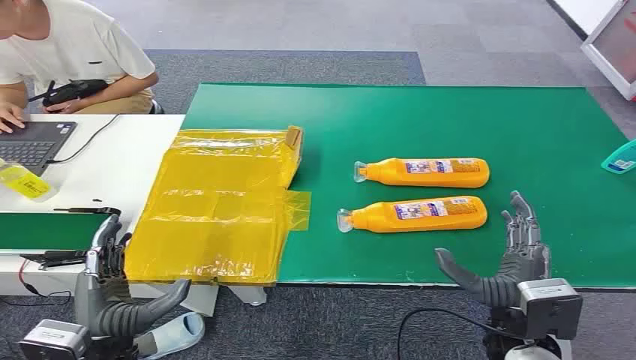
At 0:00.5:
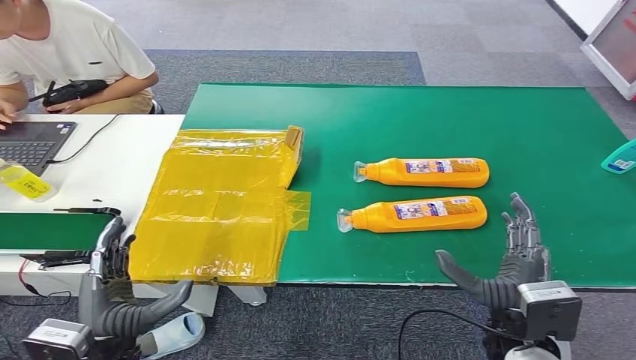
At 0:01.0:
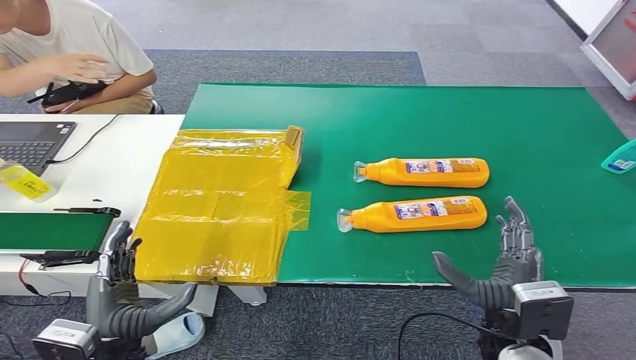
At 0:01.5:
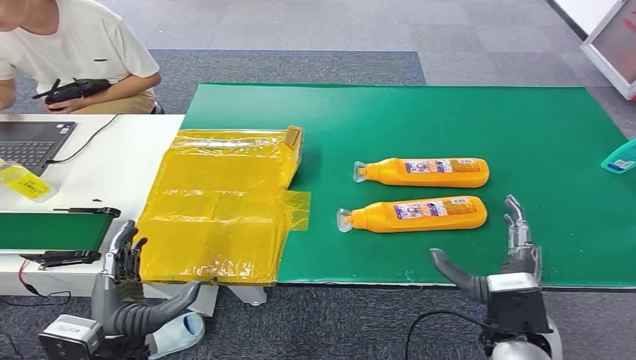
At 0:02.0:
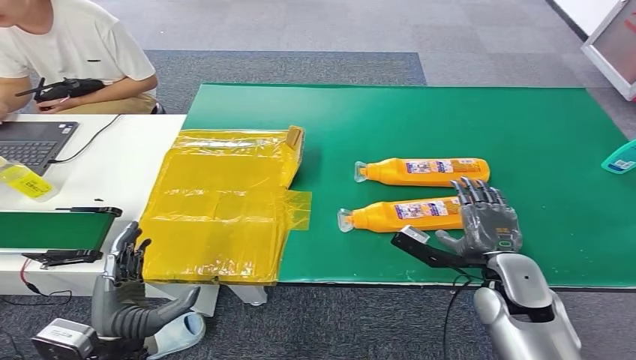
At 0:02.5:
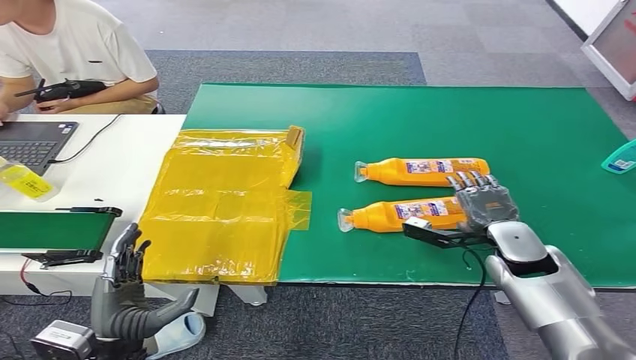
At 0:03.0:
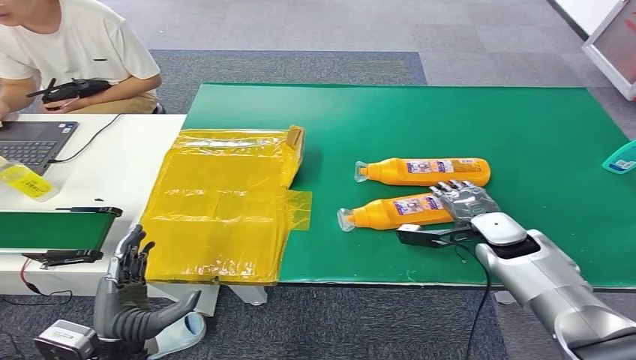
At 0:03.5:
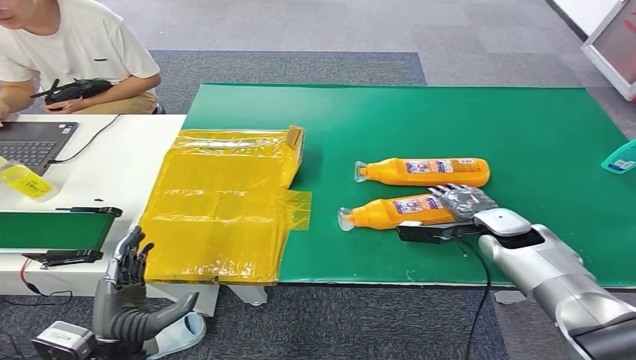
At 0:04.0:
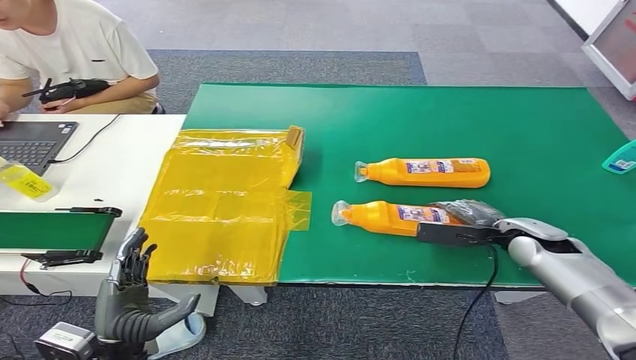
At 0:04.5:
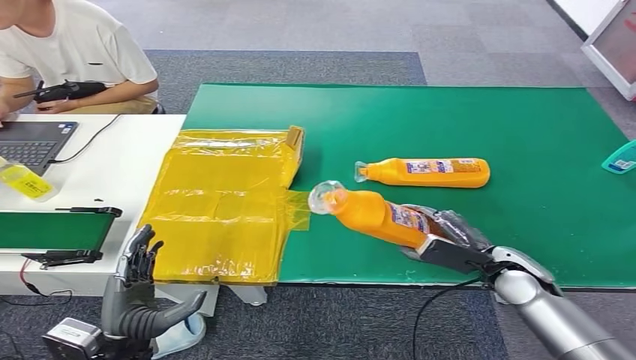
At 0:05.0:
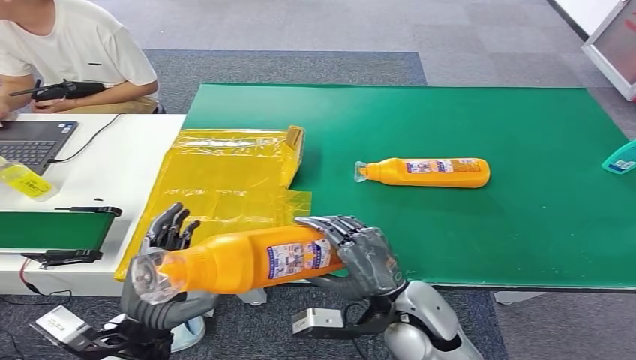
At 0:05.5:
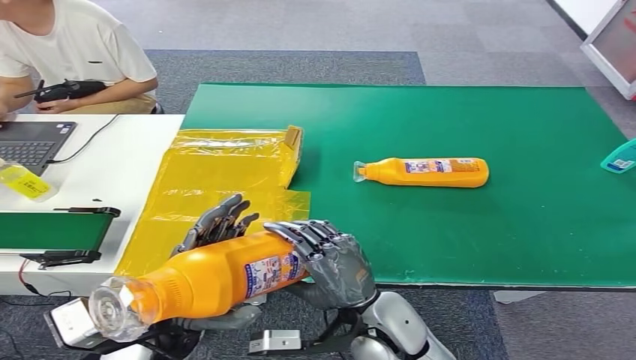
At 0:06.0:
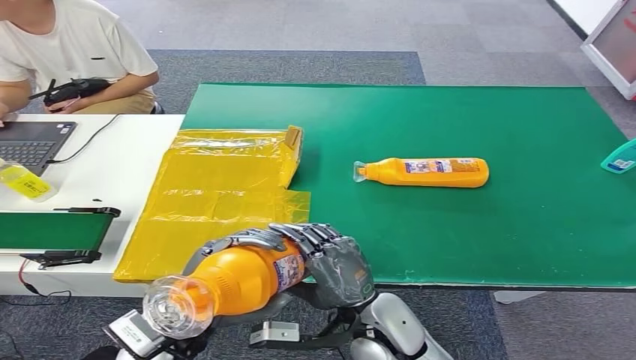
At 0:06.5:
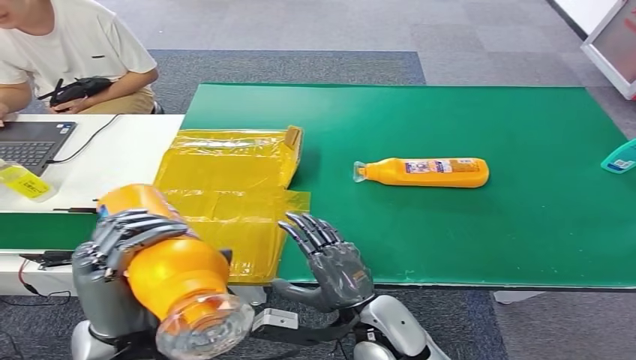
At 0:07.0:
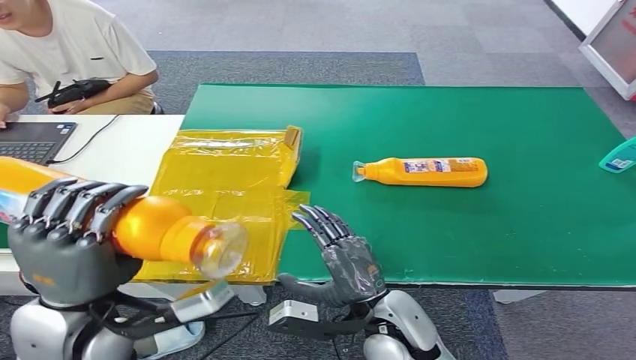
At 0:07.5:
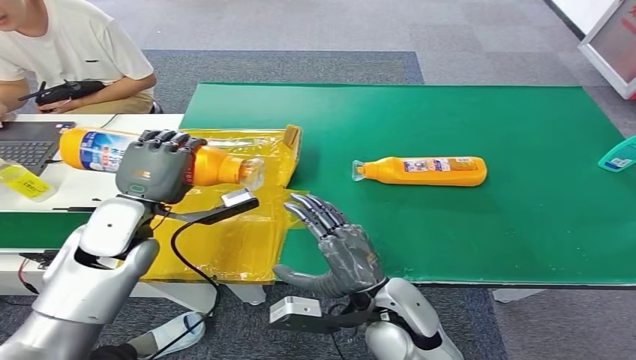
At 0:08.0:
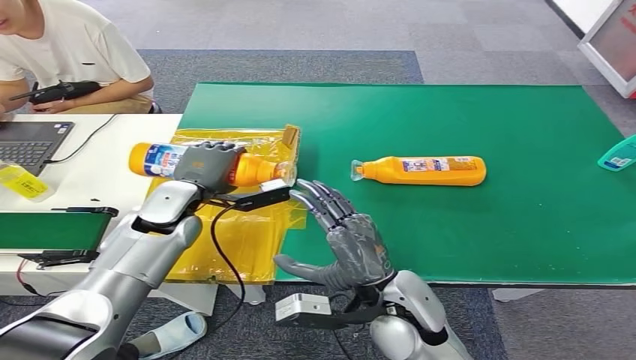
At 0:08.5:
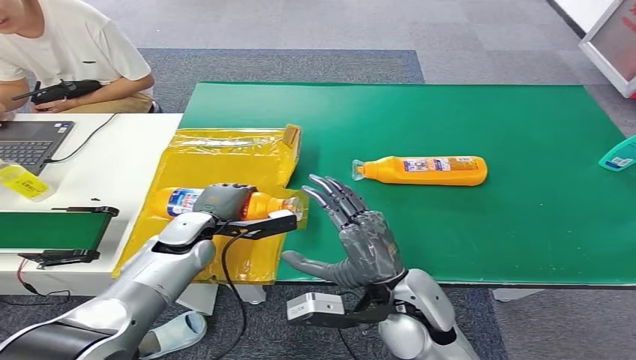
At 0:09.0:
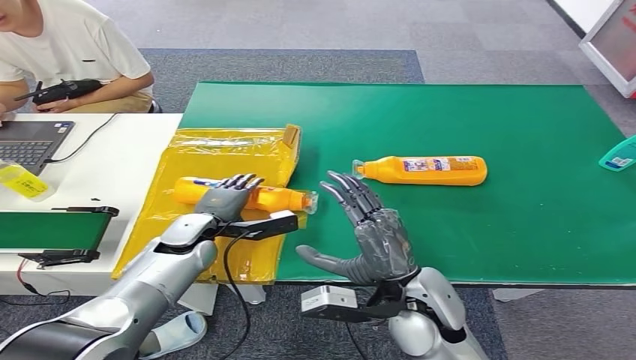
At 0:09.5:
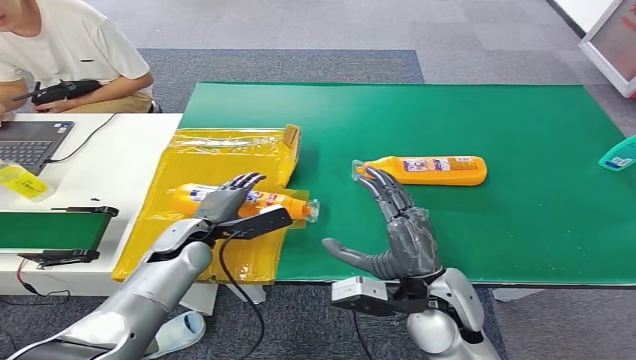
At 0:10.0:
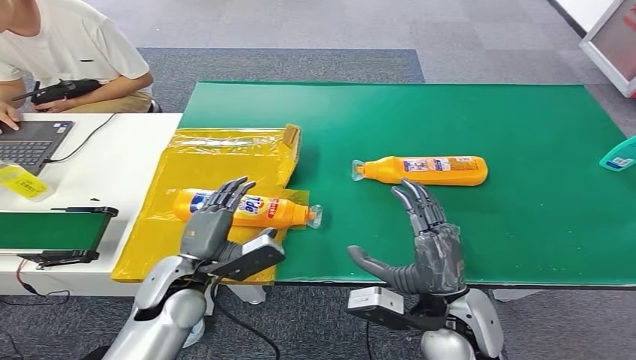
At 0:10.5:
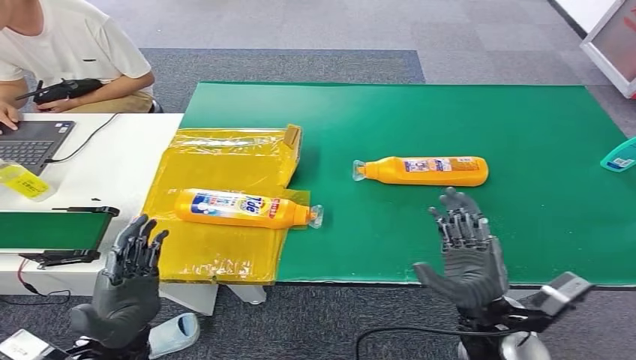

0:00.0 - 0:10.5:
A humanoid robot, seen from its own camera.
Step, 0:00.0 - 0:04.5: Pick up the bottle from the table.
Step, 0:05.0 - 0:10.0: Turn the bottle to the front side.
0:02.0 - 0:04.0: The right hand shifts approximately 15 cm forward and to the right.
0:08.5 - 0:10.5: The right hand travels to the right by about 10 cm, while the left hand goes roughly 20 cm backward.

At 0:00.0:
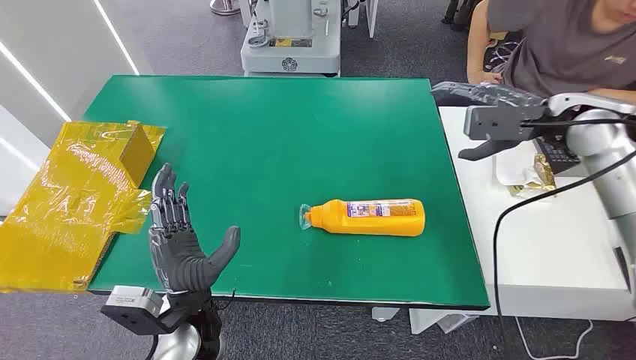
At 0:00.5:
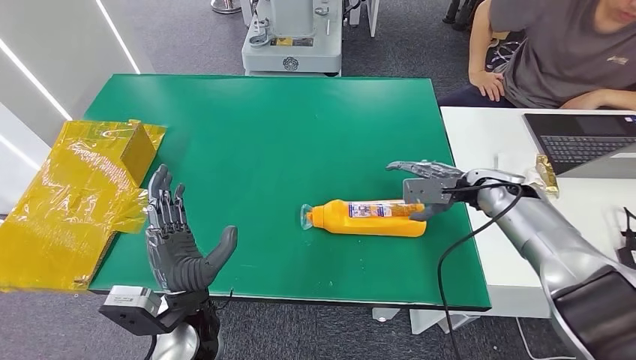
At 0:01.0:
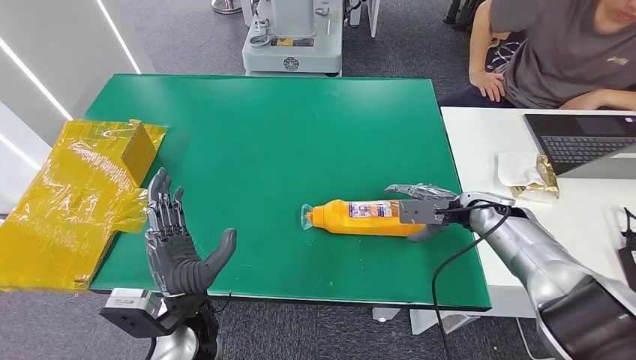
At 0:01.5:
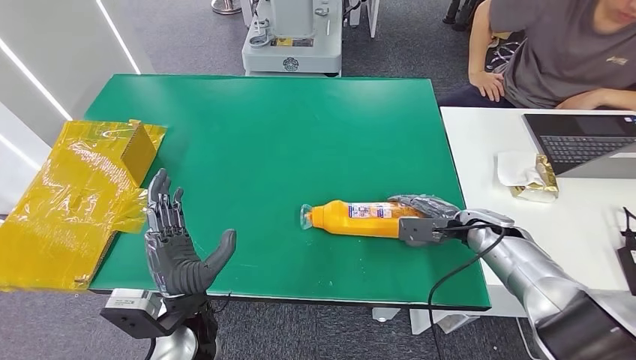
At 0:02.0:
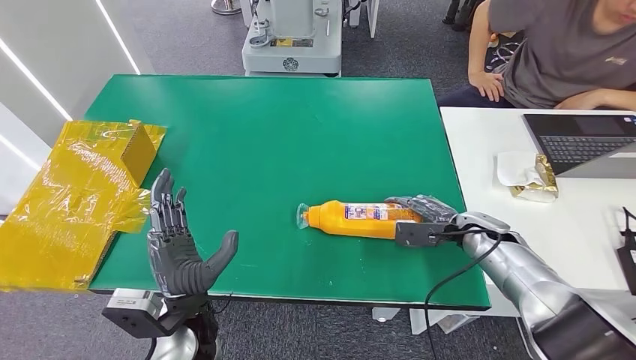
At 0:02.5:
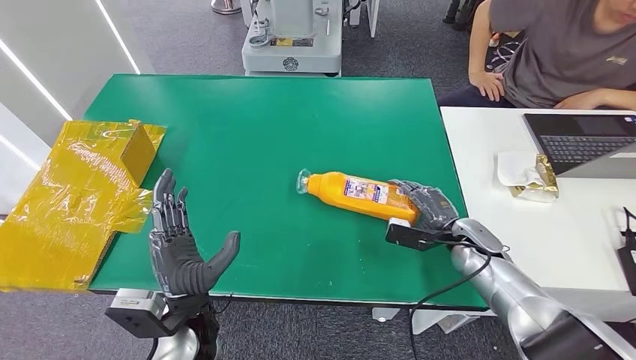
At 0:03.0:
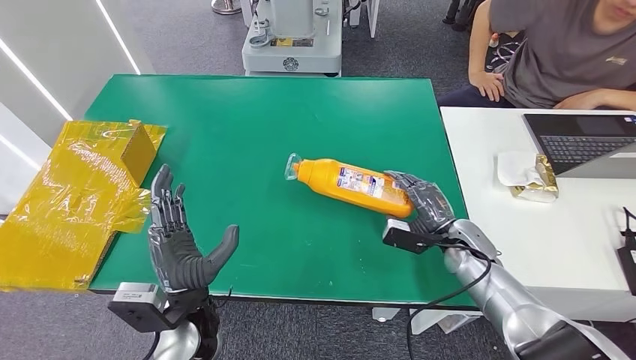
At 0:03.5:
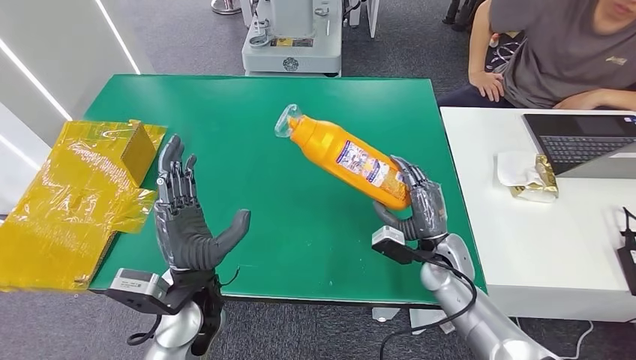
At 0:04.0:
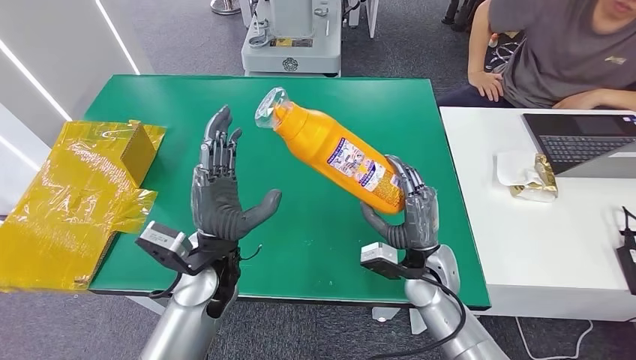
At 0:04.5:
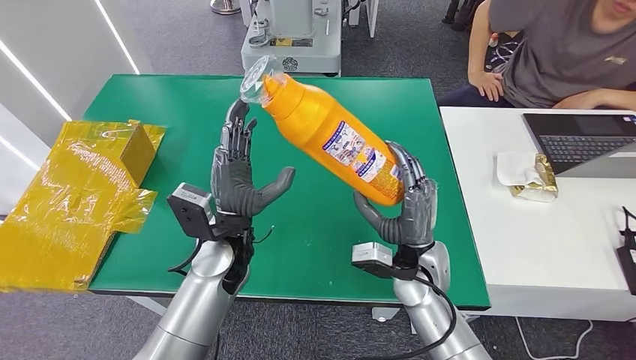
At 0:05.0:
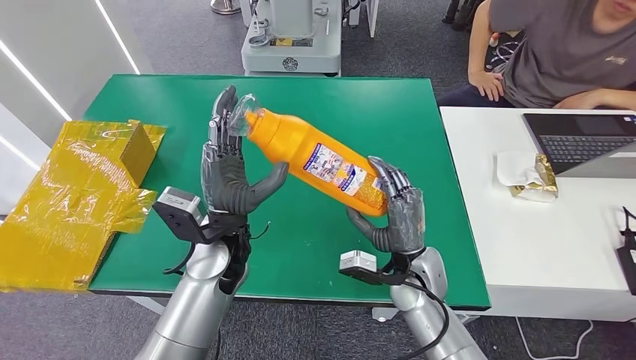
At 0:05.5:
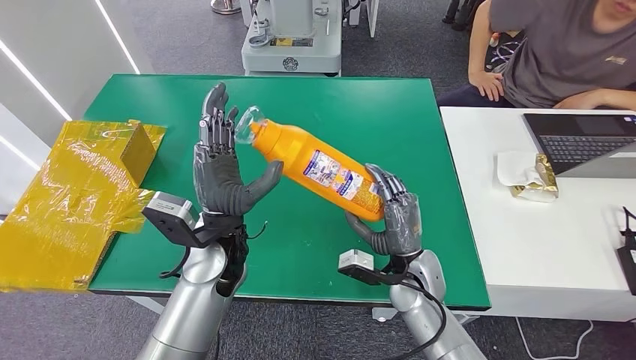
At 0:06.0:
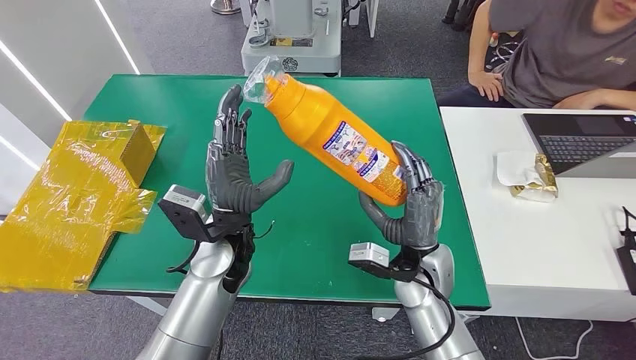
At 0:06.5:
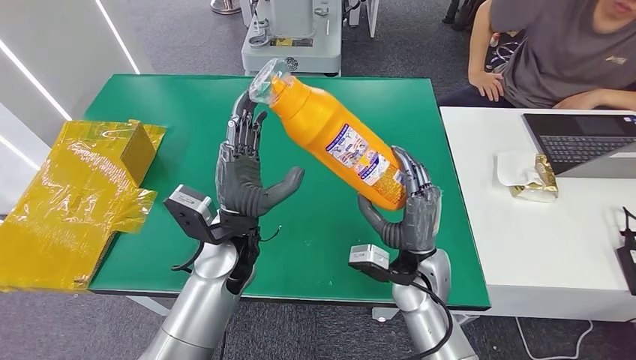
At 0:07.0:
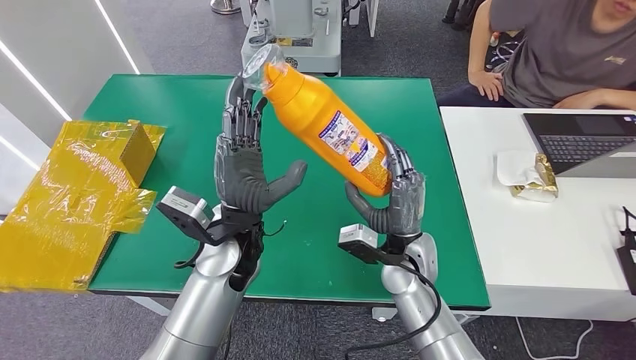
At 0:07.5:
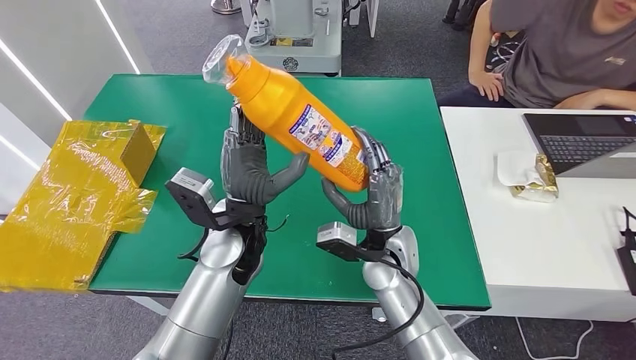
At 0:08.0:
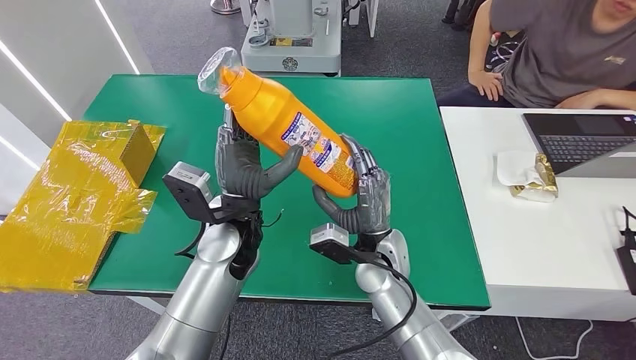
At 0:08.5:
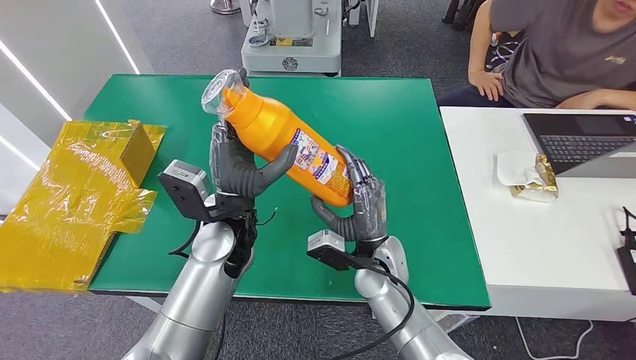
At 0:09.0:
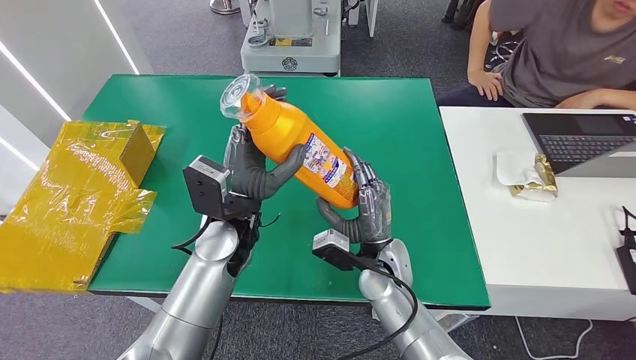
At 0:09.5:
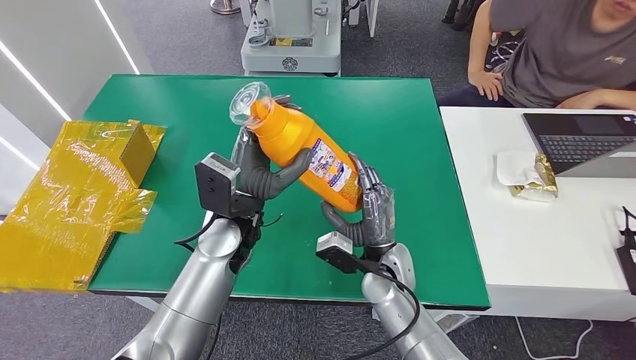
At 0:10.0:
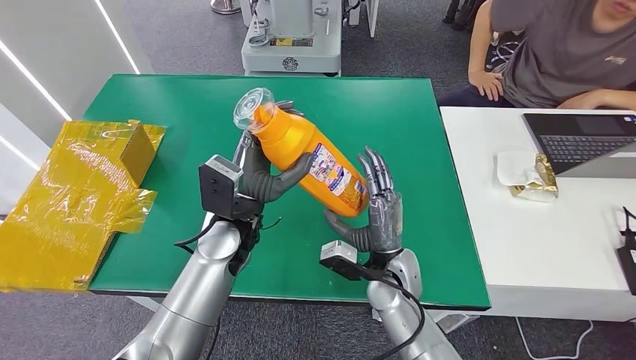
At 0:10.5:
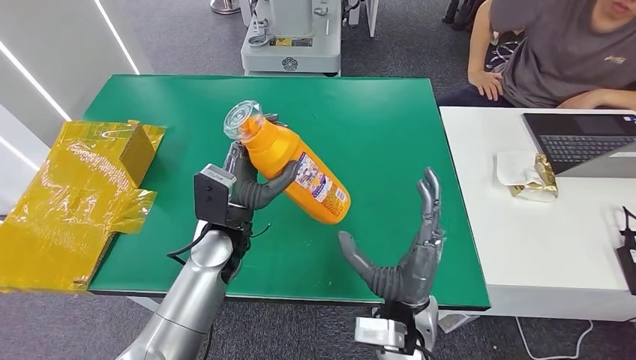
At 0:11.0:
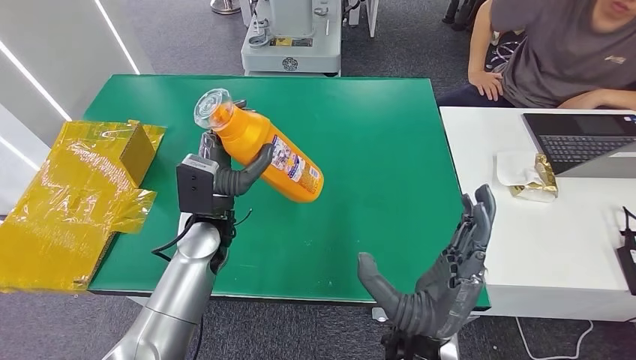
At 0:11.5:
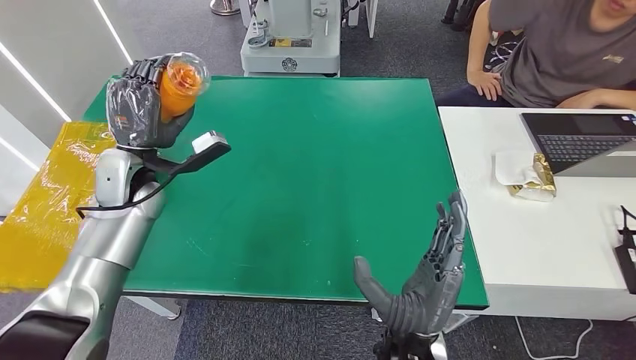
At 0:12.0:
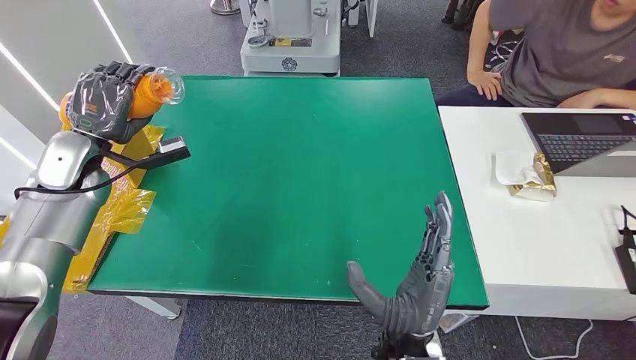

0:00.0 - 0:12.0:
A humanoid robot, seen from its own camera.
Step, 0:00.0 - 0:03.0: Pick up the bottle from the table.
0:02.0 - 0:04.0: The right hand moves to the left and backward, roughly 15 cm, while the left hand shifts about 10 cm forward.
0:04.0 - 0:06.0: The hands make only small movements.
0:06.0 - 0:08.0: The right hand heads to the left, covering approximately 5 cm.
0:08.0 - 0:10.0: There are only small adjustments of the hands.
